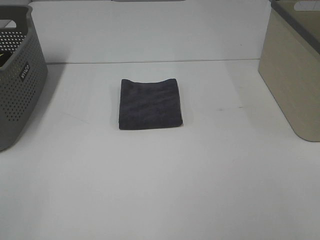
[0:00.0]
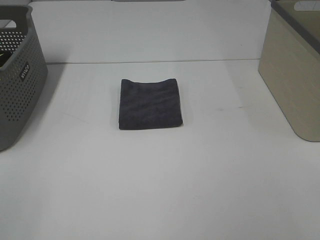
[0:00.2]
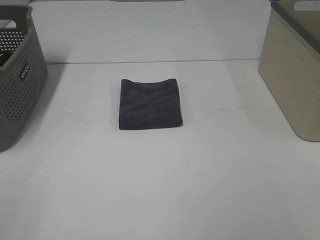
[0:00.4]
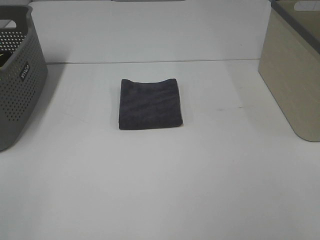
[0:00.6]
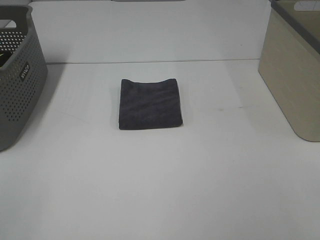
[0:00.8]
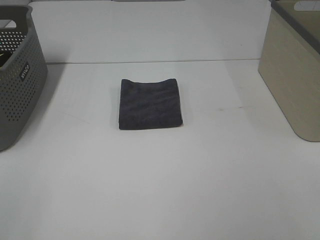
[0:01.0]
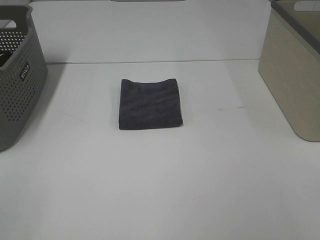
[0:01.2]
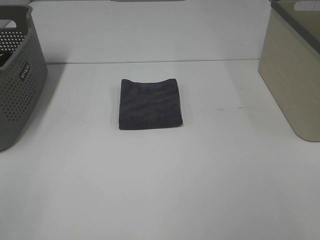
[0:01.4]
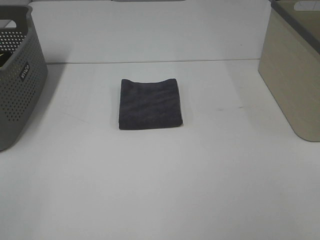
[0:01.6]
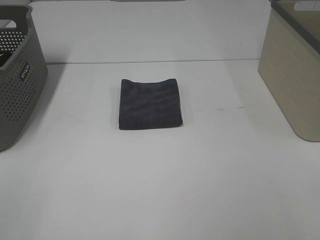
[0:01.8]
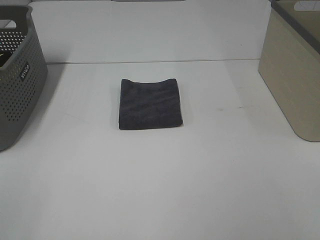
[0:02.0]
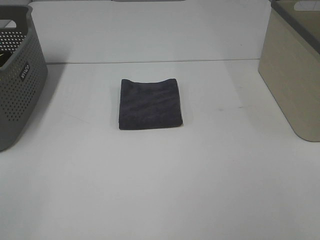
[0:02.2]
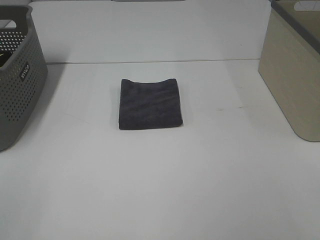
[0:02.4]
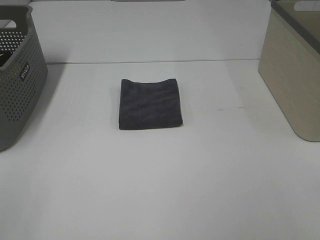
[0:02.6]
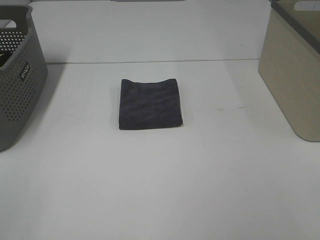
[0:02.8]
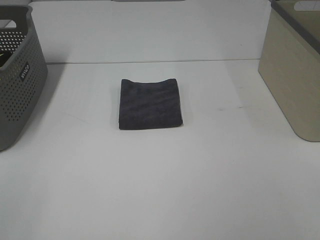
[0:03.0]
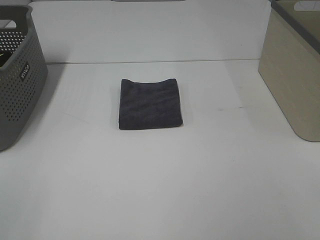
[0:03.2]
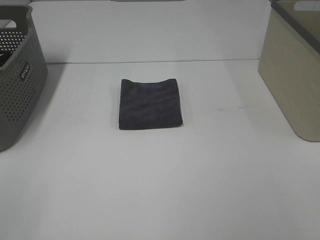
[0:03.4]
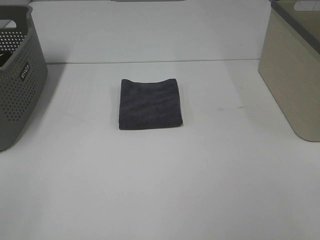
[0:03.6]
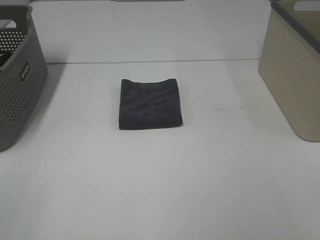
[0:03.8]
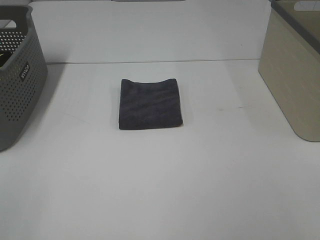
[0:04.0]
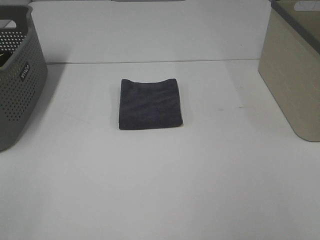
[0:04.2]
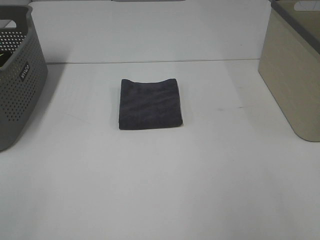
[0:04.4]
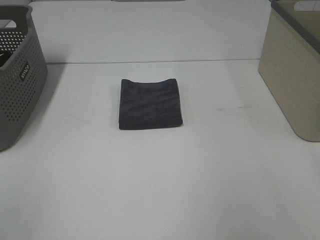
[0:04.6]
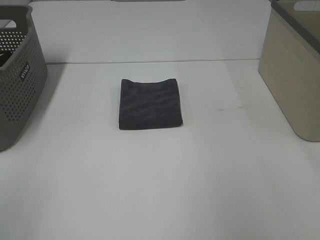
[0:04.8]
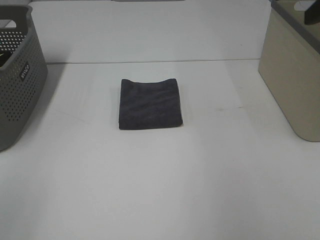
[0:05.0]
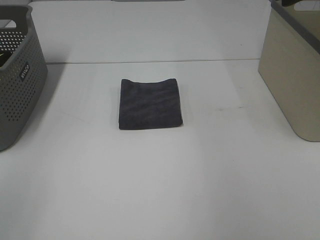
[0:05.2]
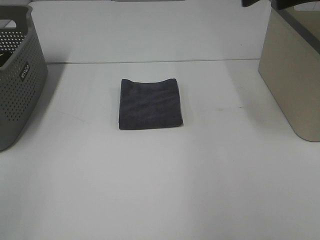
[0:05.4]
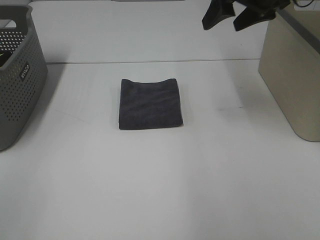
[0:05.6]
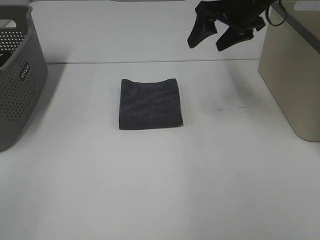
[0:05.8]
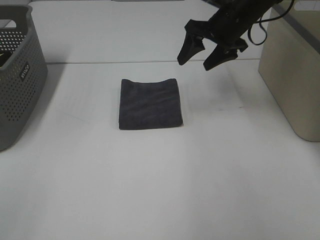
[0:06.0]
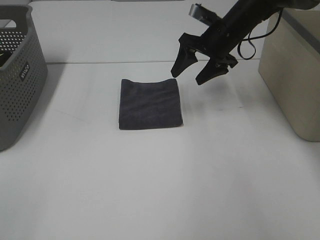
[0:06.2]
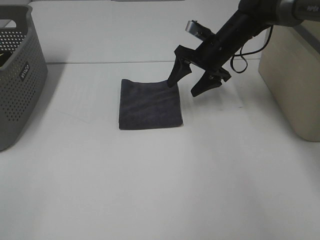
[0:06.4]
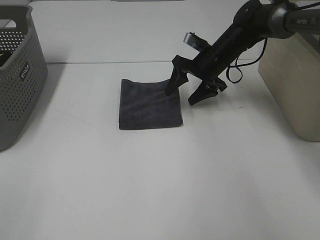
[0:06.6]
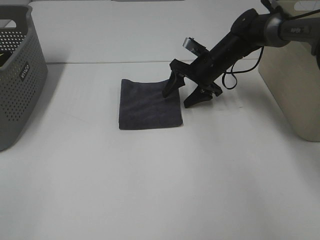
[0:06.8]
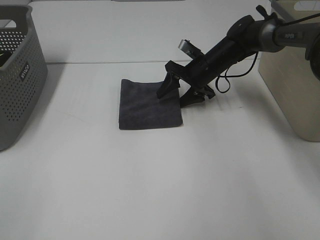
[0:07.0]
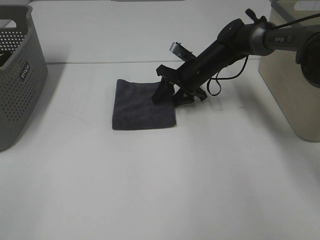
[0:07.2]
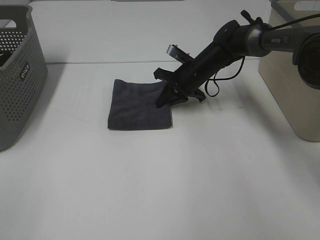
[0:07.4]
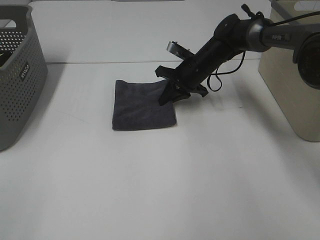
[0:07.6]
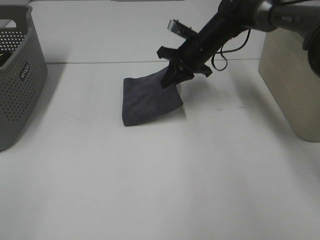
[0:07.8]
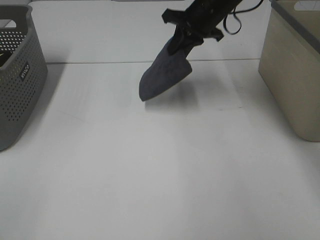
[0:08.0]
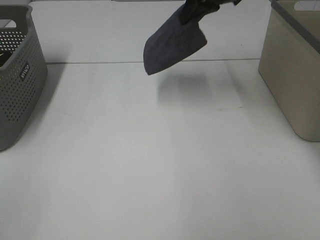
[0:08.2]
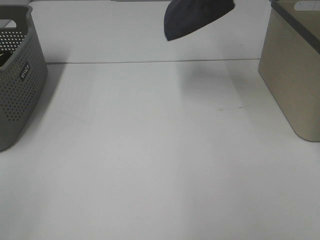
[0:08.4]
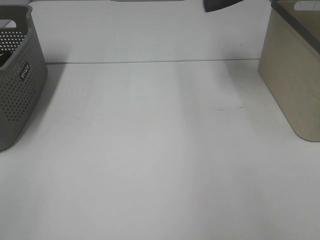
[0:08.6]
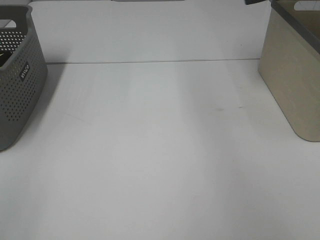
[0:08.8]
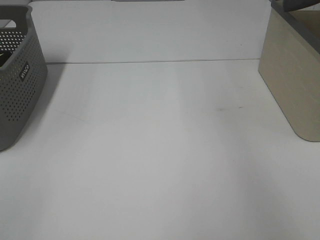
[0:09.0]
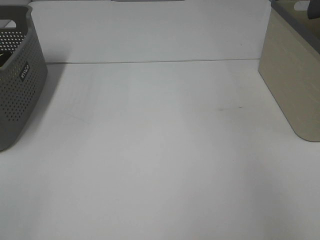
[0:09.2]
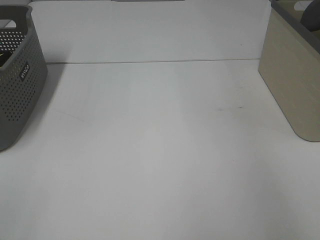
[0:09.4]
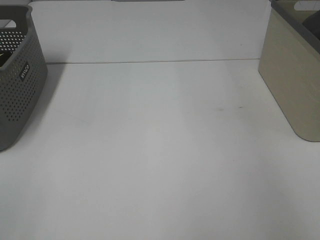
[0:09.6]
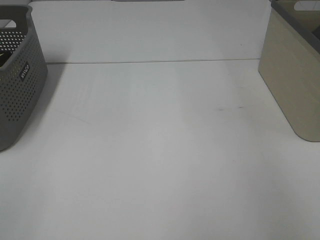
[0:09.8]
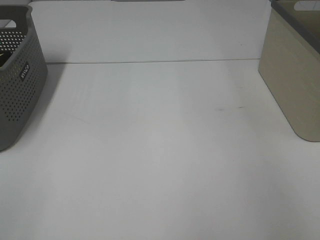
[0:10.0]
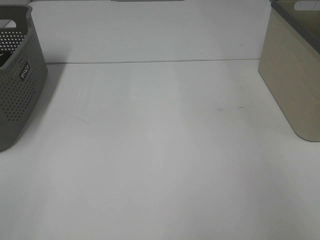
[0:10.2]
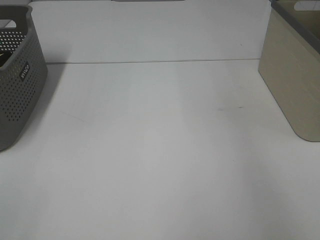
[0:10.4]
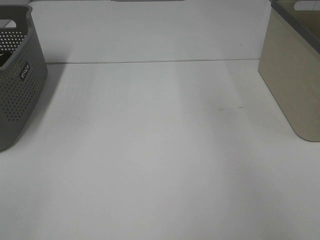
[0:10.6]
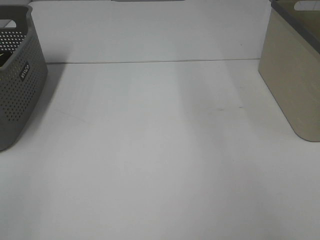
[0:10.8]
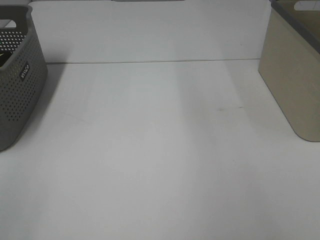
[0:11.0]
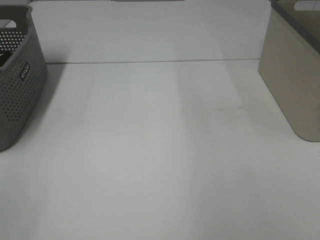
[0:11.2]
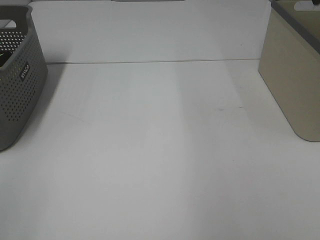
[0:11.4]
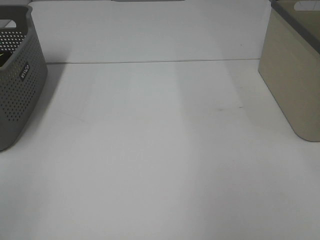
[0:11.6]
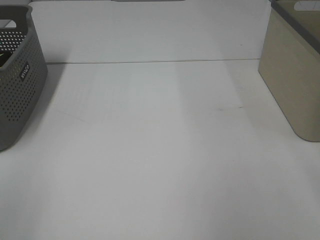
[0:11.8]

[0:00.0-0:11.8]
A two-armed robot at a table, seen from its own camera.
Step, 0:00.0 to 0:07.4: Right hand: grab the folded grey towel.
Step, 0:07.6 to 0:10.0: Right hand: place the grey towel in right basket.
0:00.0 to 0:03.0: The two grippers keep their place.
0:04.4 to 0:06.0: The right gripper goes about 40 cm forward and to the left.
0:06.0 to 0:07.4: The right gripper heads downward, covering some 15 cm, and closes its fingers.
0:07.4 to 0:08.8: The right gripper is displaced upward and to the right by roughly 40 cm.

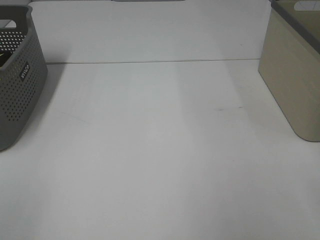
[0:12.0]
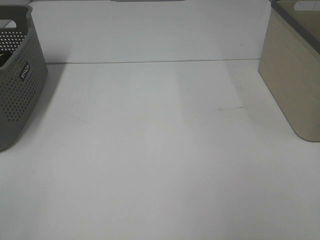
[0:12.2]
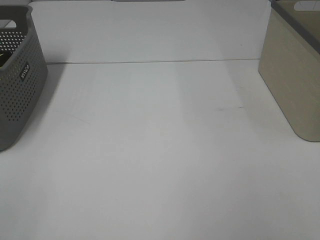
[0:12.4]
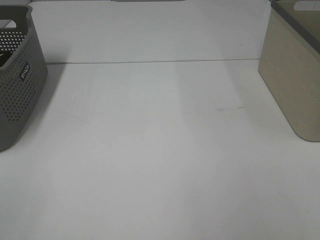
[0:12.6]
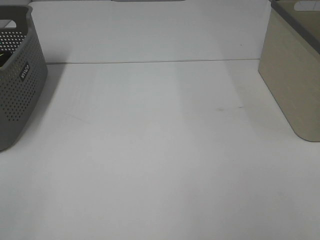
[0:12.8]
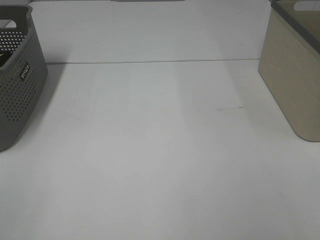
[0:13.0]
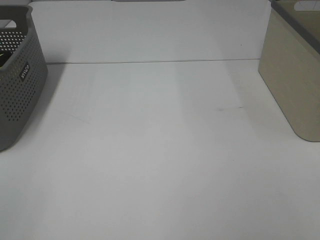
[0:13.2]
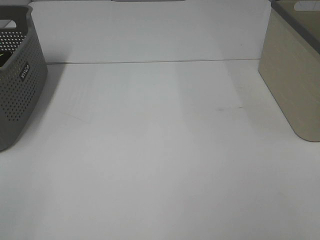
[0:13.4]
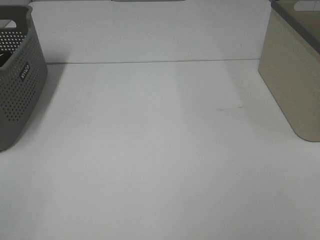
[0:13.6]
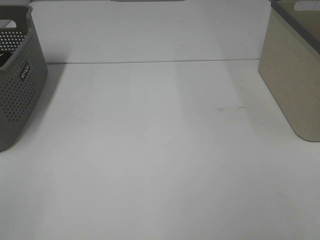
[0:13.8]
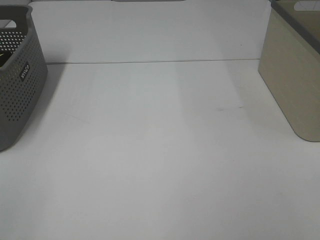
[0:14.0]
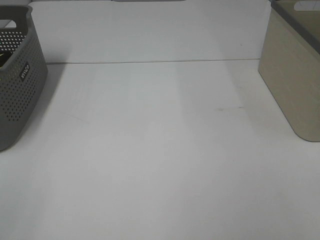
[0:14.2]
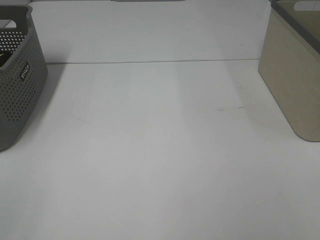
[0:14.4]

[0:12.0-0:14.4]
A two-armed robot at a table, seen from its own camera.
0:13.2 to 0:14.4: Neither gripper changes place.

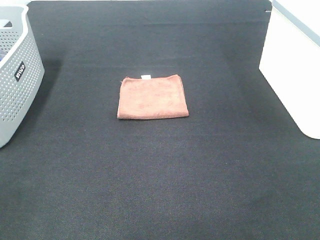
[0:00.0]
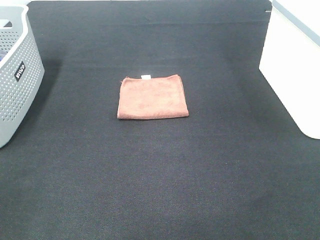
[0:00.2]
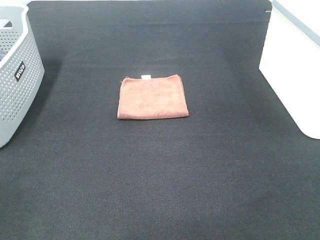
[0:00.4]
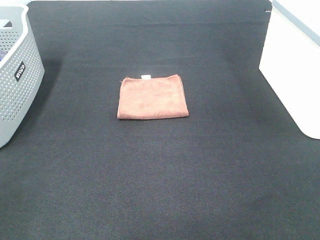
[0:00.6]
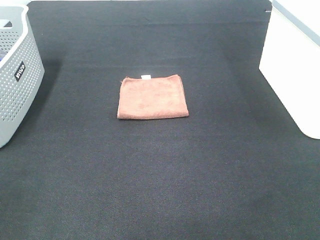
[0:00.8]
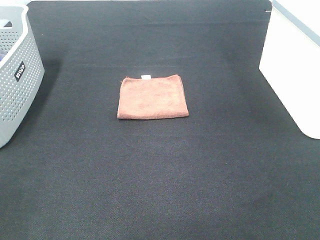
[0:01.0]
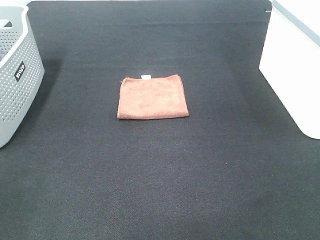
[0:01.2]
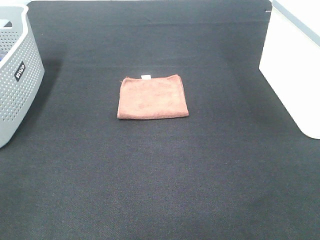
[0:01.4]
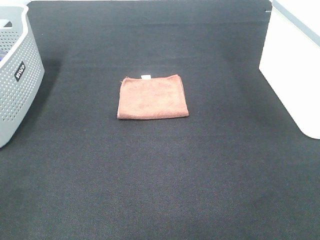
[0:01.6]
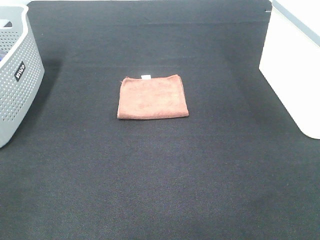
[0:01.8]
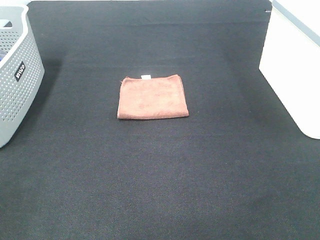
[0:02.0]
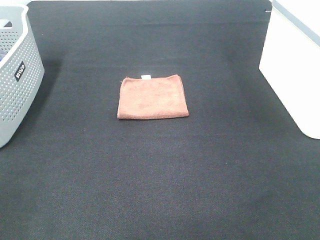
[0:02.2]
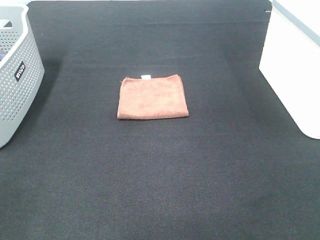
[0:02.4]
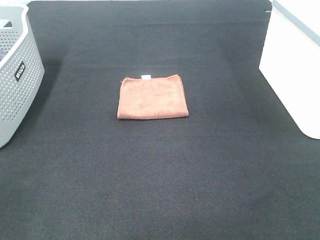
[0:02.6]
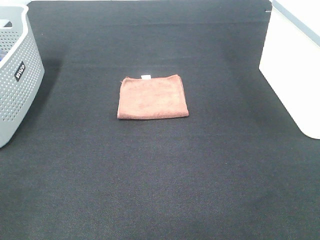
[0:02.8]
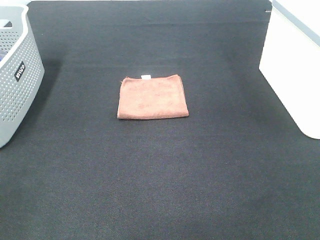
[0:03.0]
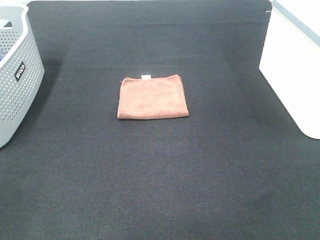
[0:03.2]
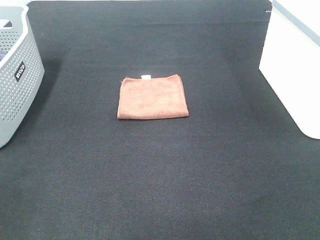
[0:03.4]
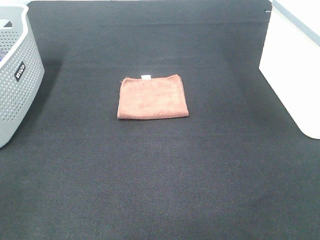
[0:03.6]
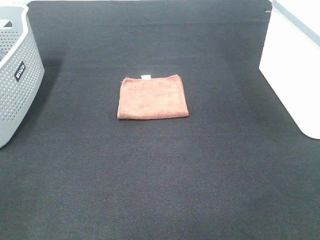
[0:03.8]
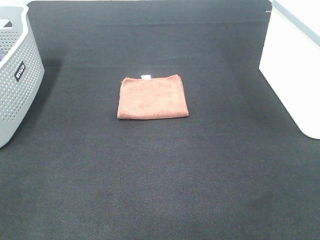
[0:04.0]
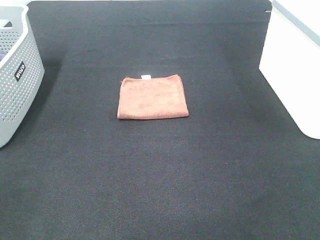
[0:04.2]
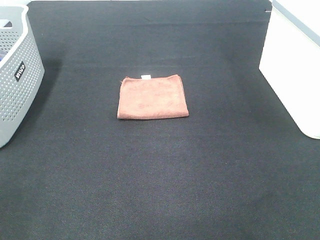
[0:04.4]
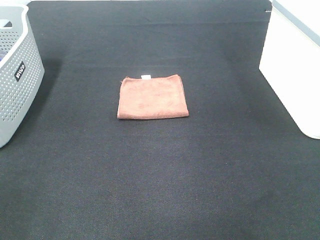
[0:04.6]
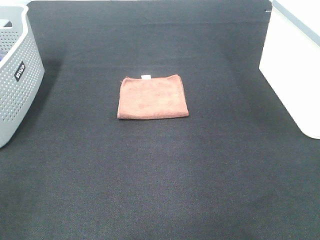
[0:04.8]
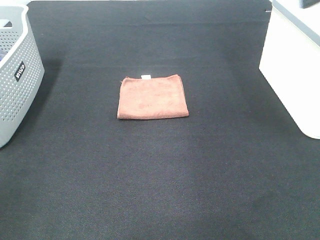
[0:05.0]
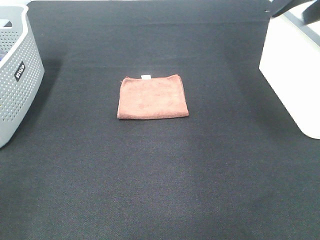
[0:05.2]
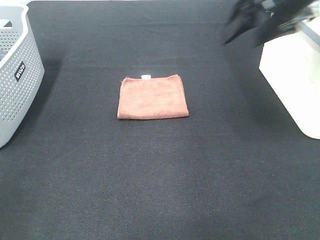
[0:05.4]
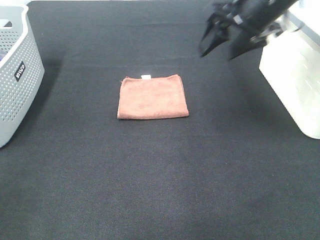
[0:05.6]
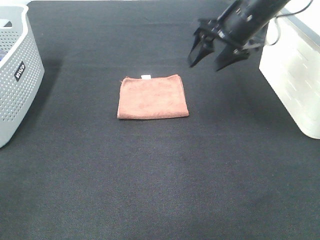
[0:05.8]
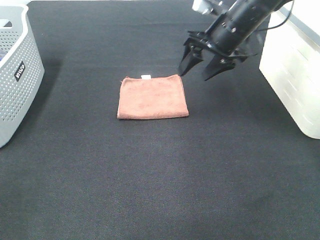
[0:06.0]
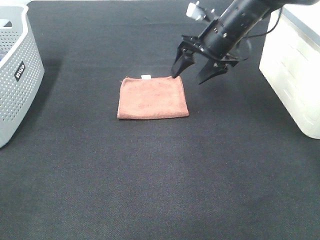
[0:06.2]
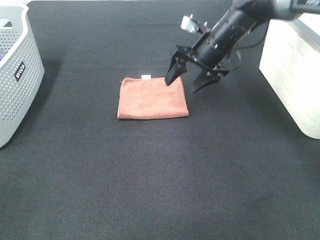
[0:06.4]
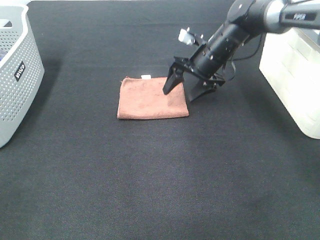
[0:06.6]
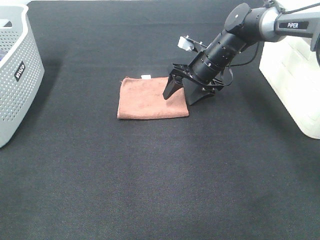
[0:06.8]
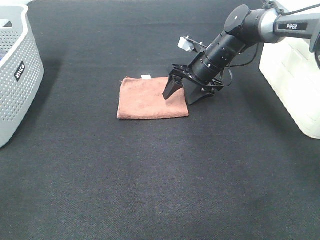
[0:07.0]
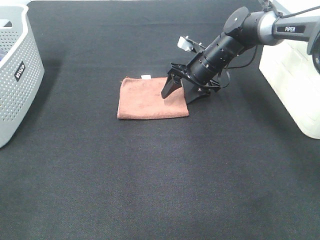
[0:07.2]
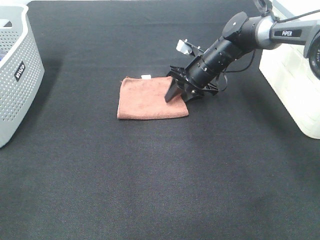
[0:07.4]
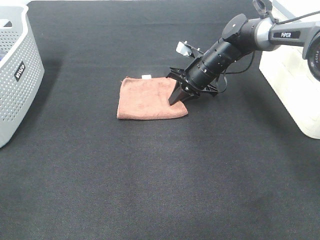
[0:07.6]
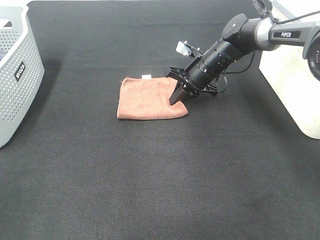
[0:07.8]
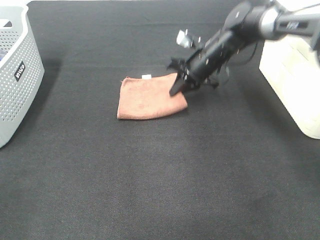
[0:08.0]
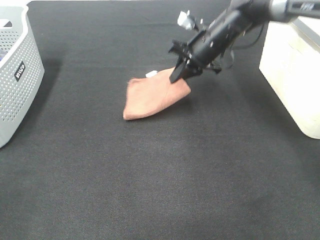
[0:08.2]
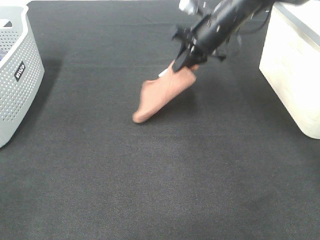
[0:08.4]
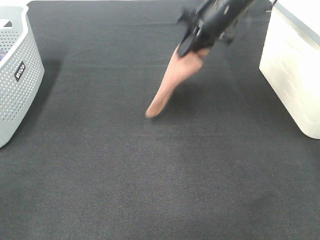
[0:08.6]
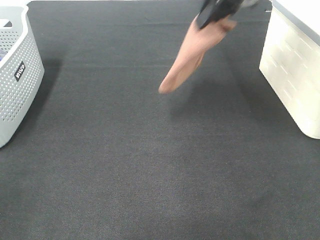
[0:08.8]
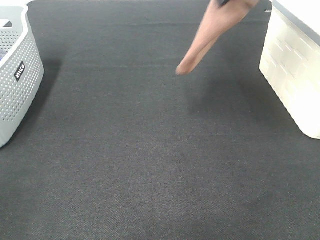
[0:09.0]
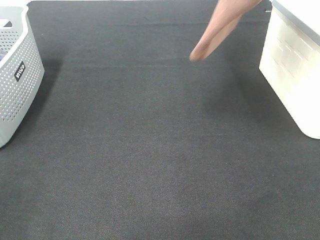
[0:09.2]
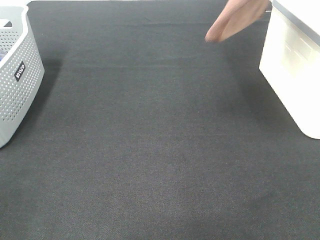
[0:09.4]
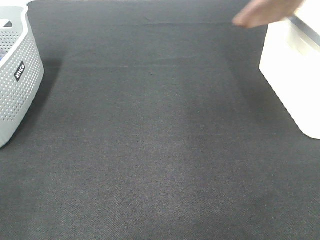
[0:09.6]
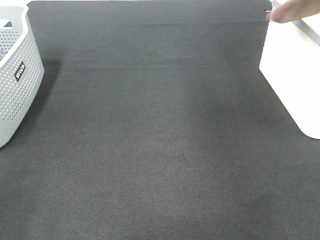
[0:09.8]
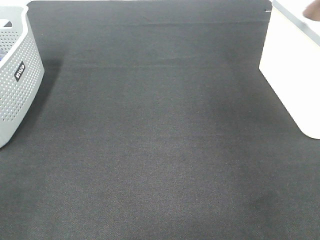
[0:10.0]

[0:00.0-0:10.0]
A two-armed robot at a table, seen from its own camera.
Step, 0:00.0 to 0:07.8: Right hand: grab the folded brown towel.
0:00.0 to 0:02.8: Both grippers stay about where they are.
0:04.2 to 0:05.8: The right gripper goes approximately 35 cm forward.
0:05.8 to 0:07.2: The right gripper travels downward and forward by about 15 cm.
0:07.2 to 0:08.6: The right gripper moves upward, about 15 cm, and closes up.
0:08.6 to 0:10.0: The right gripper travels to the right and upward by roughly 30 cm.
